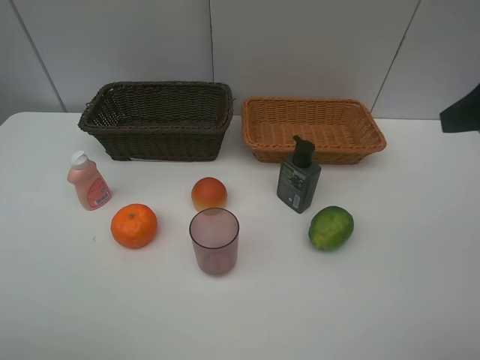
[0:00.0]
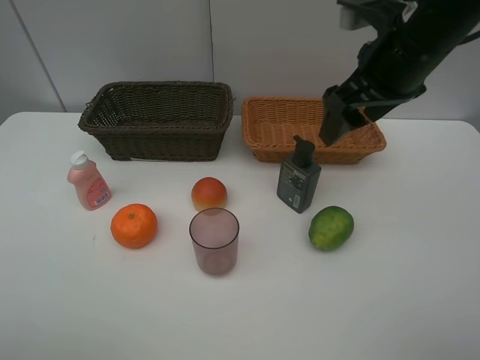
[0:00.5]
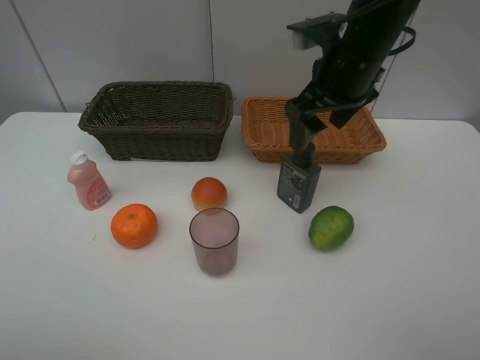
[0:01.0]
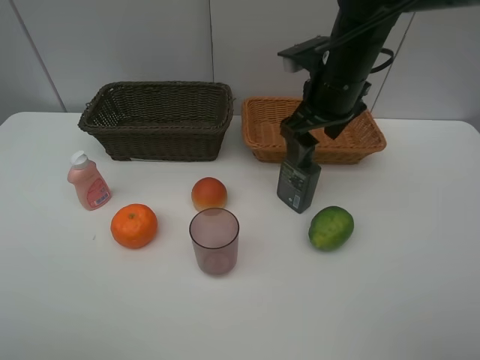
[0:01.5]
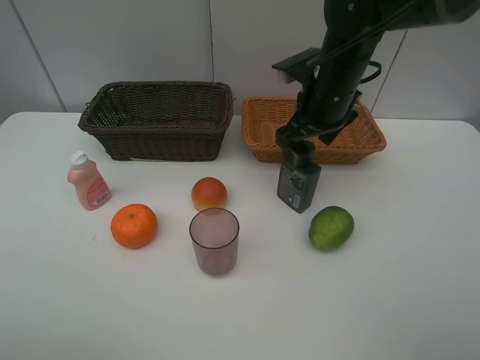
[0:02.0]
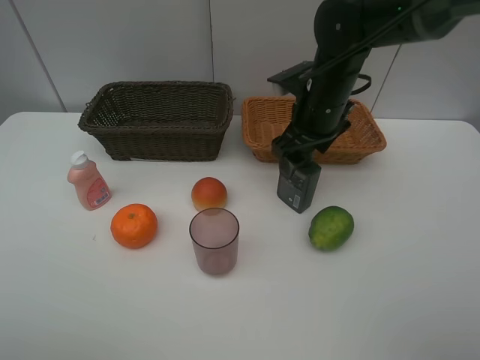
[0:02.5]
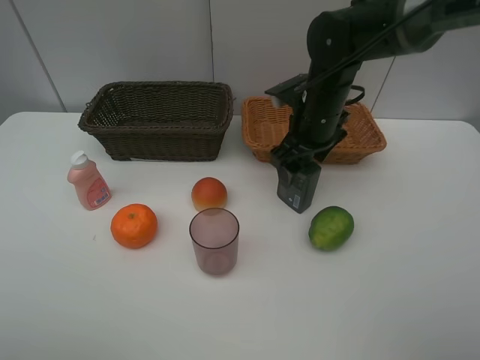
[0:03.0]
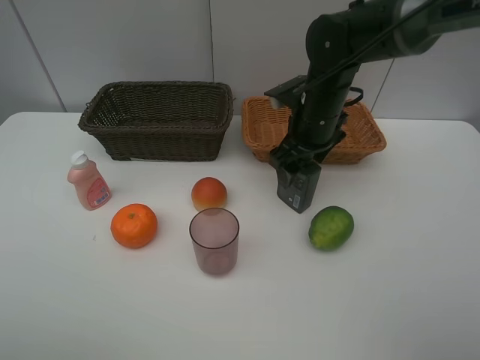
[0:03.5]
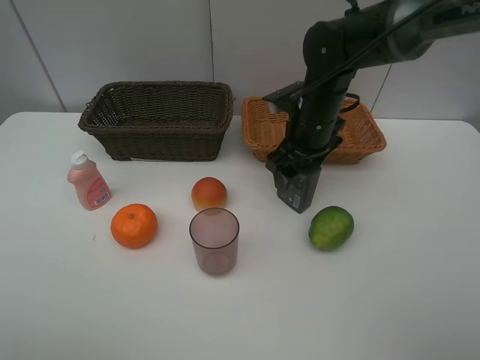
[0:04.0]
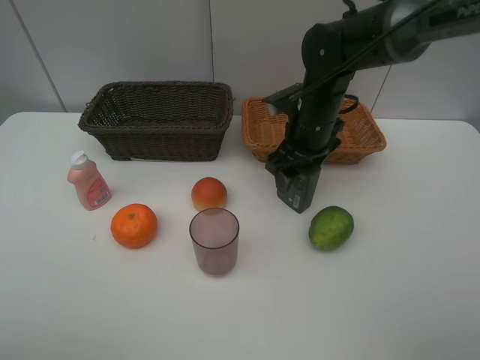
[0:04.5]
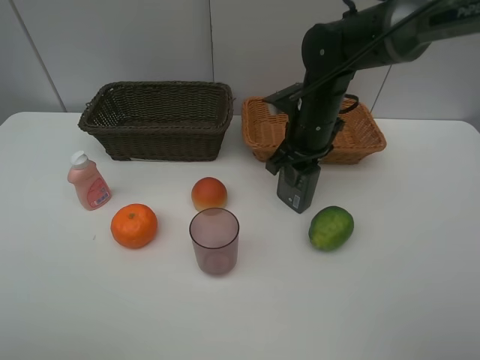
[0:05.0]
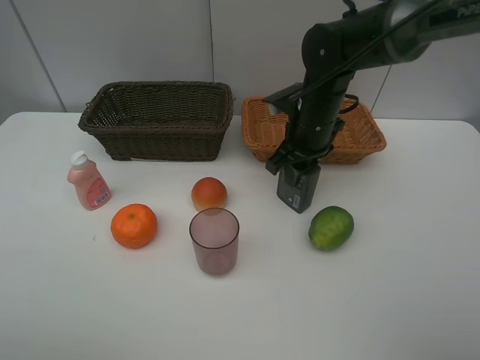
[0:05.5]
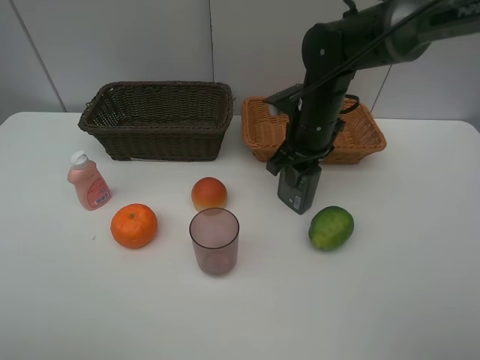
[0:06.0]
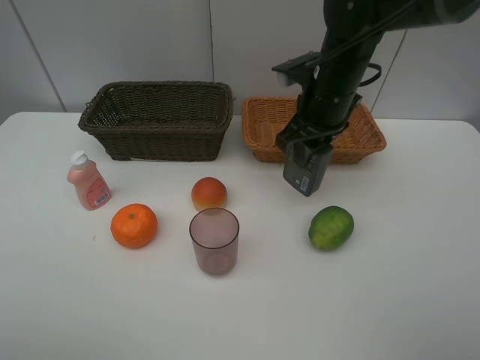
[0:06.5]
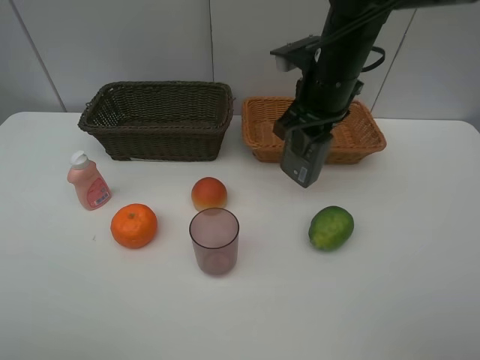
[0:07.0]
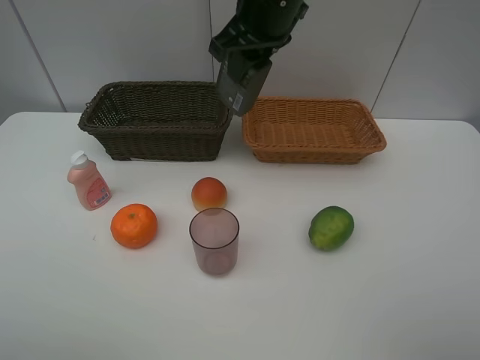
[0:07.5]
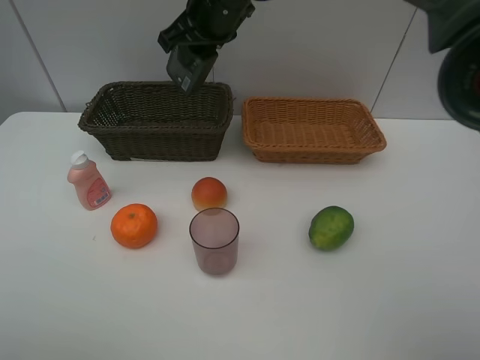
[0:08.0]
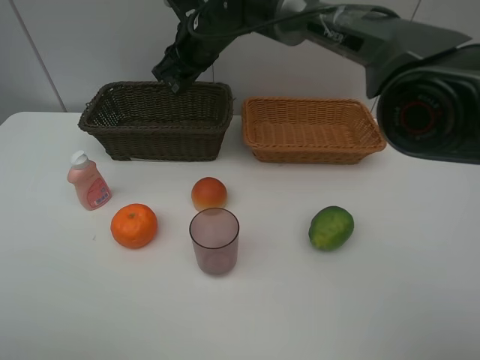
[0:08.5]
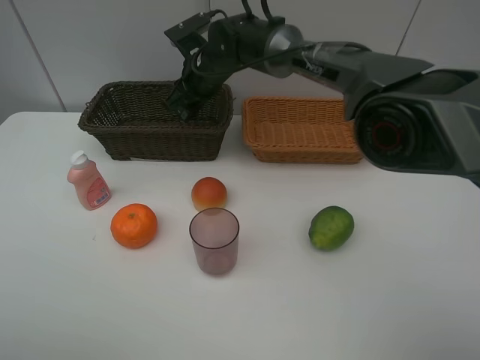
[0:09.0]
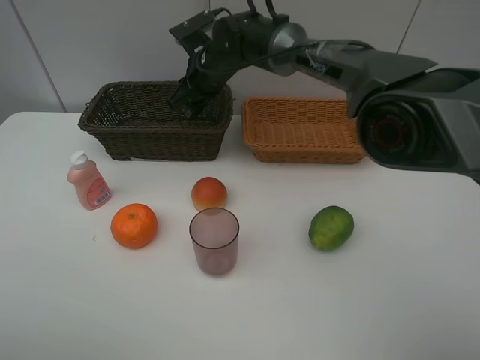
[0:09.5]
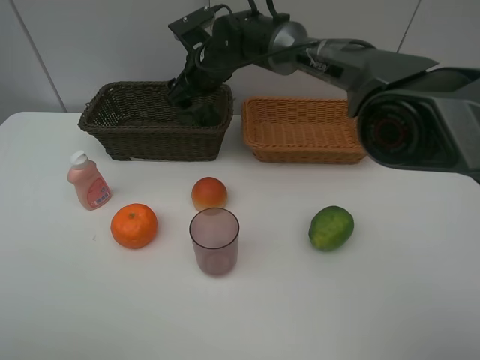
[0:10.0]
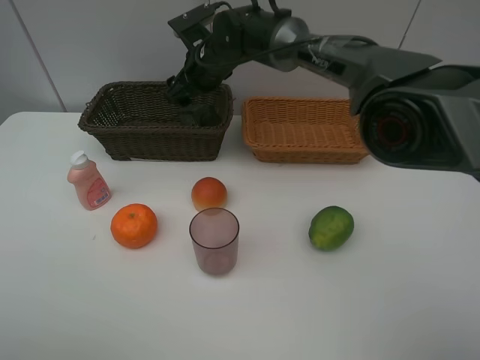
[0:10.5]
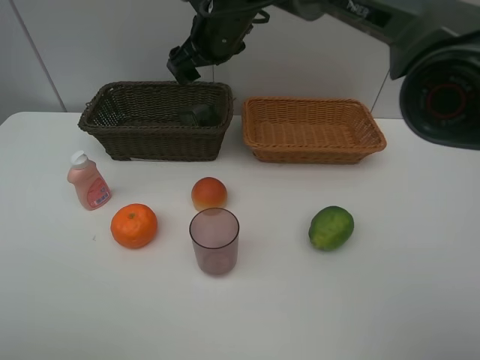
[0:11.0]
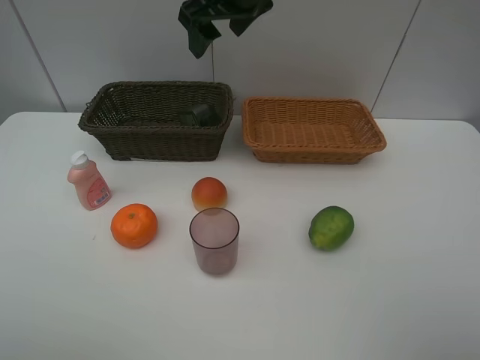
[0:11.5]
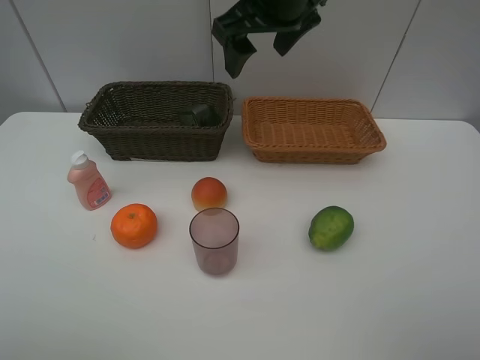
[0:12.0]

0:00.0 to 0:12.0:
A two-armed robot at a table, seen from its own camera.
Task of the whole recording: place multiple objects separately in different baskets.
0:00.0 to 0:02.0: The right gripper shifts some 25 cm forward, to the left and downward.
0:02.0 to 0:04.0: The right gripper moves downward, about 5 cm.
0:06.0 to 0:08.0: The right gripper is displaced upward and to the left by approximately 20 cm.
0:08.0 to 0:10.0: The right gripper travels downward and forward by approximately 15 cm, and opens up.
0:10.0 to 0:12.0: The right gripper heads upward, backward and to the right, covering some 20 cm.

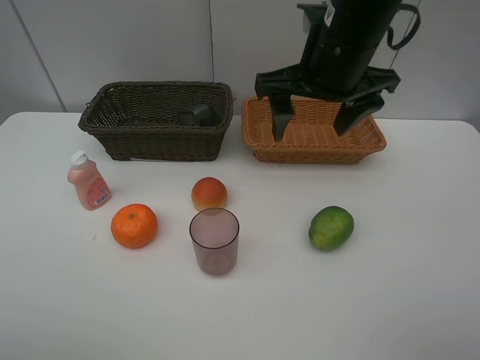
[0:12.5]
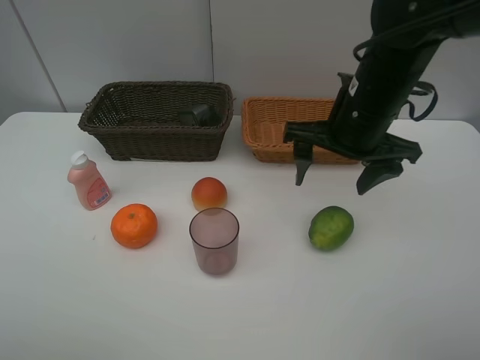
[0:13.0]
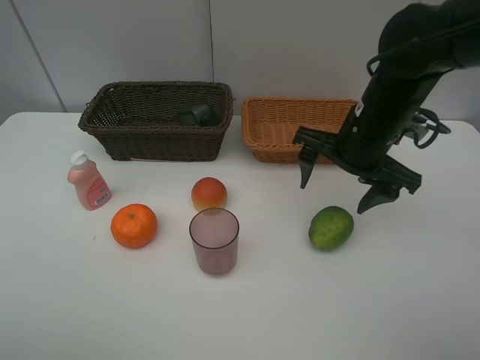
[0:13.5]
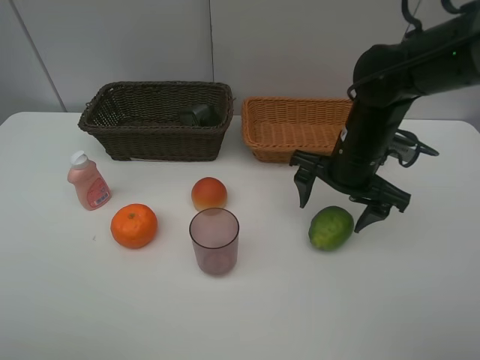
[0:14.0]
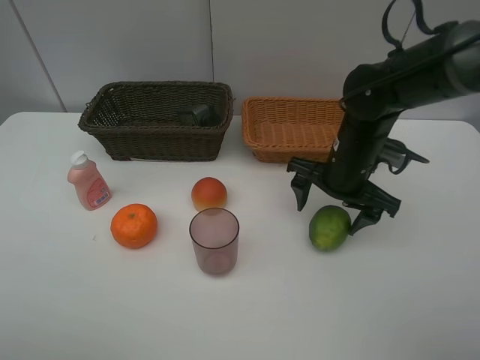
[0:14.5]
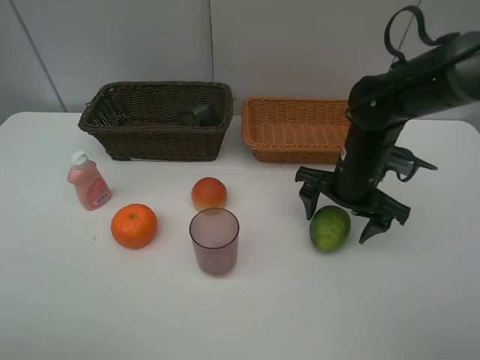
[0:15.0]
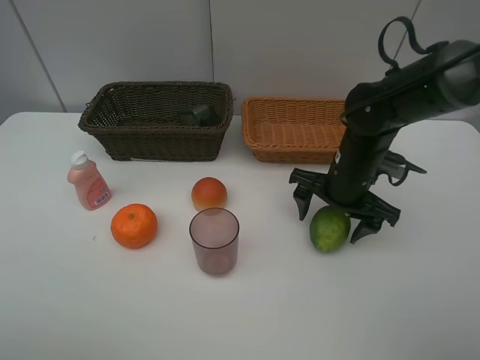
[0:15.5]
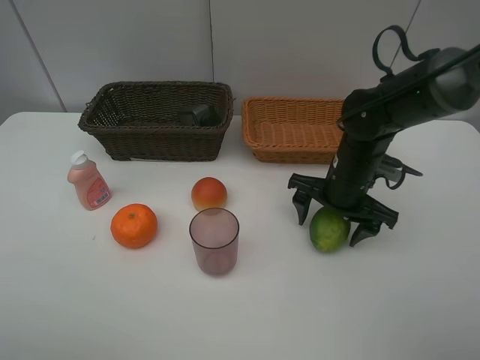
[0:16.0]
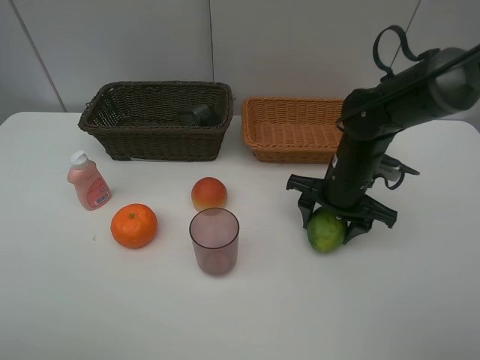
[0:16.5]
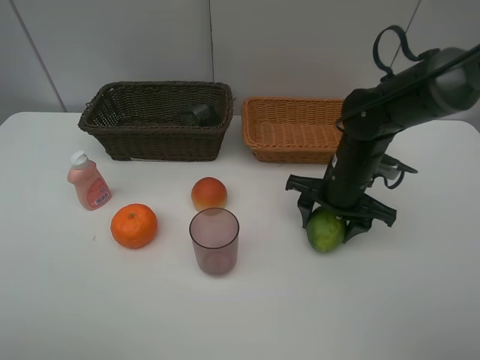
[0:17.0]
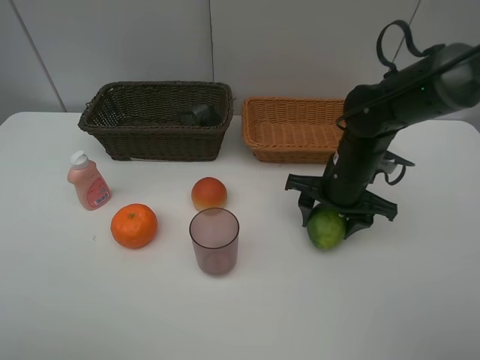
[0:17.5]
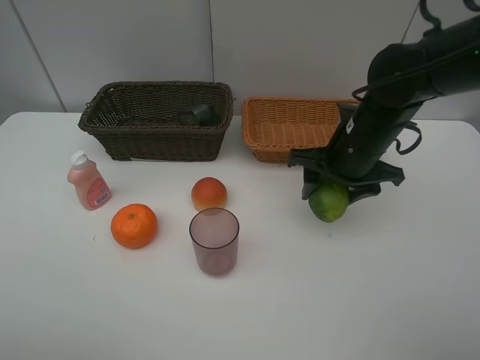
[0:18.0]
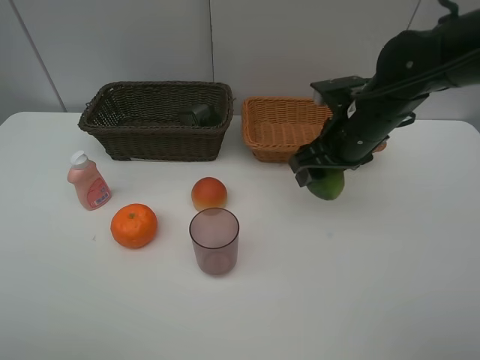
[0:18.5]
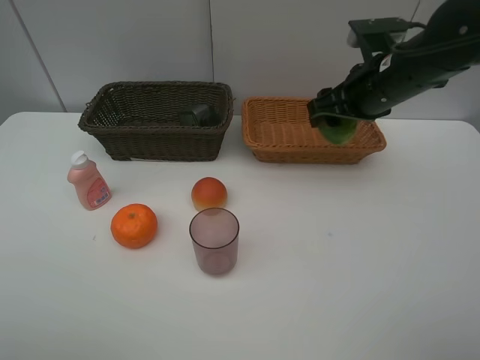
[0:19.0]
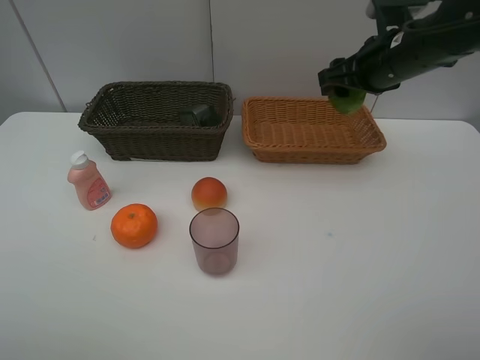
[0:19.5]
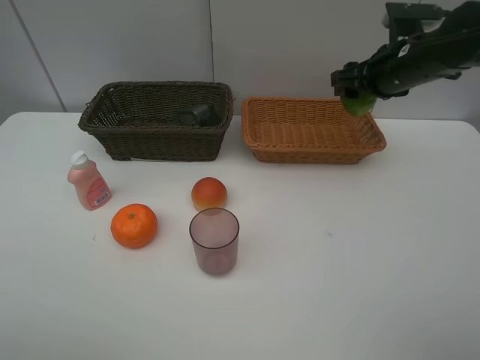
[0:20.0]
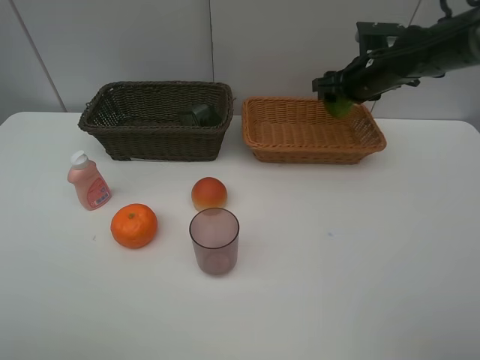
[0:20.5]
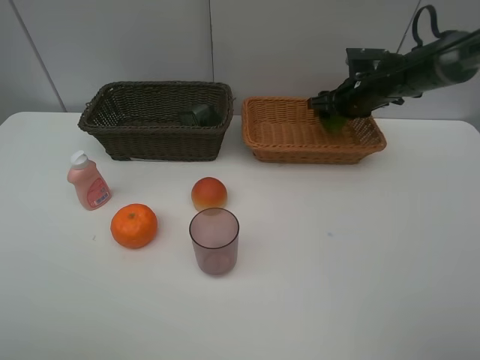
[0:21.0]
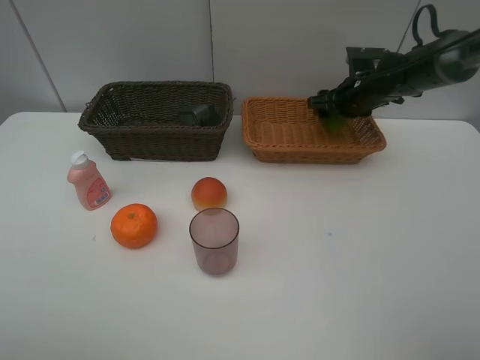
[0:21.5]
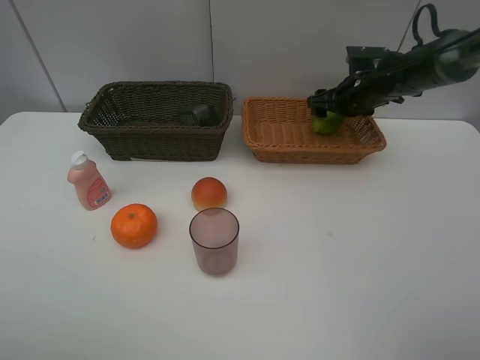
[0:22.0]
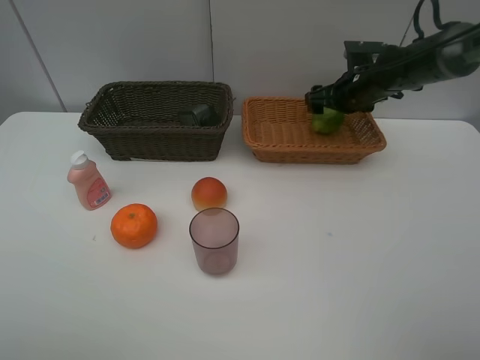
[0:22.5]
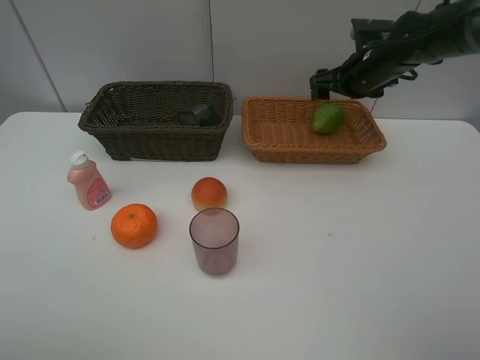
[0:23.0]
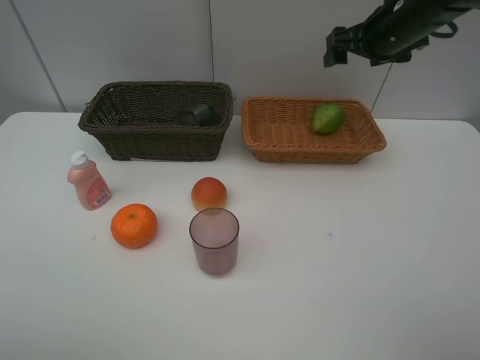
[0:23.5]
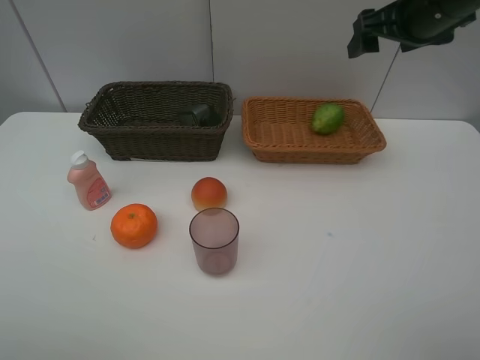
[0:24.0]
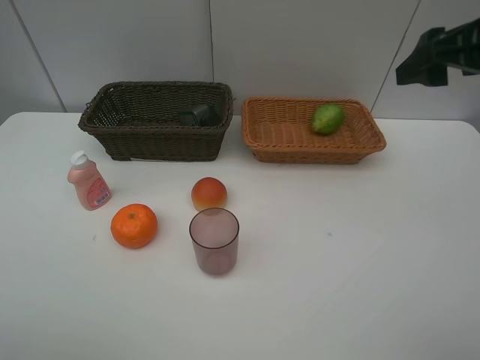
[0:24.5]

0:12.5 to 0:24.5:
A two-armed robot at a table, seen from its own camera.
Task of the whole recording: place multiple objects separately in different baskets.
0:12.5 to 0:14.5: The right gripper shifts some 15 cm downward.
0:14.5 to 0:16.5: The right gripper closes up.
0:16.5 to 0:18.5: The right gripper goes some 10 cm upward.
0:18.5 to 0:20.5: The right gripper goes about 15 cm forward and to the right.
0:20.5 to 0:22.5: The right gripper opens.
0:22.5 to 0:24.5: The right gripper moves backward and upward, some 30 cm.

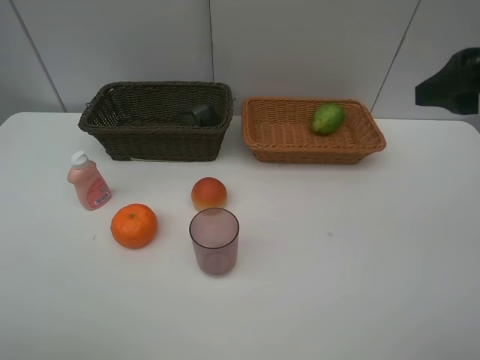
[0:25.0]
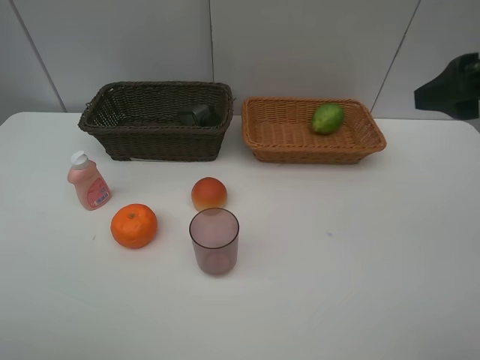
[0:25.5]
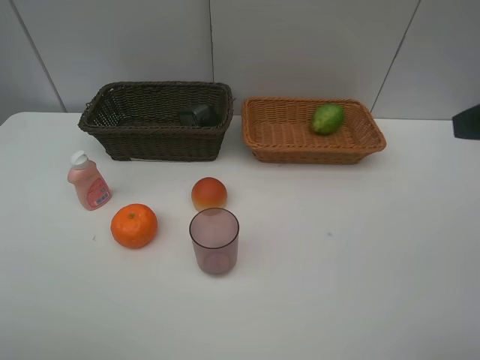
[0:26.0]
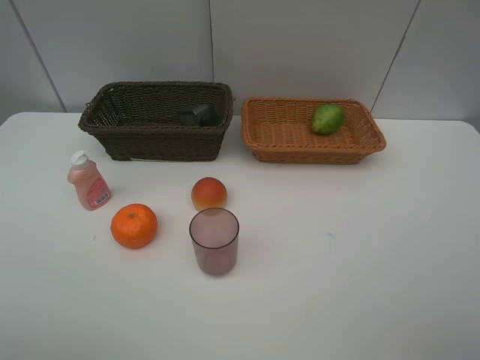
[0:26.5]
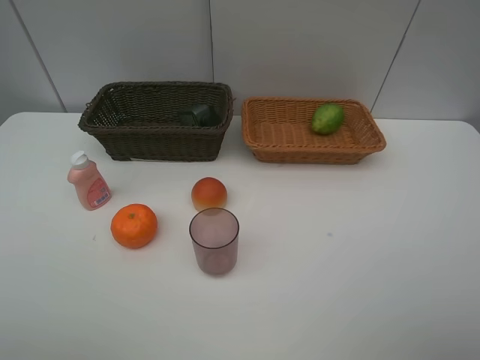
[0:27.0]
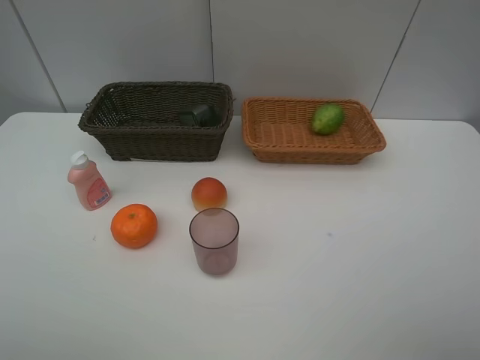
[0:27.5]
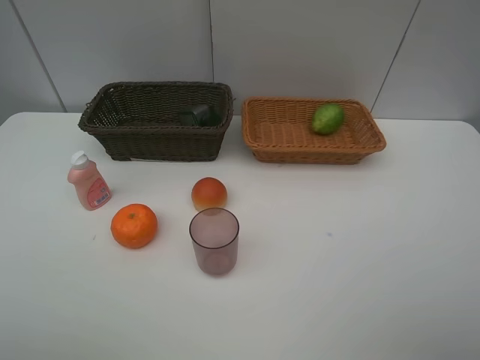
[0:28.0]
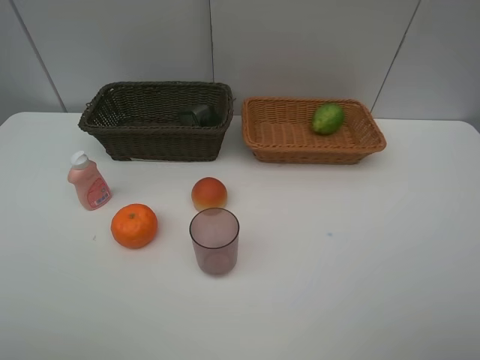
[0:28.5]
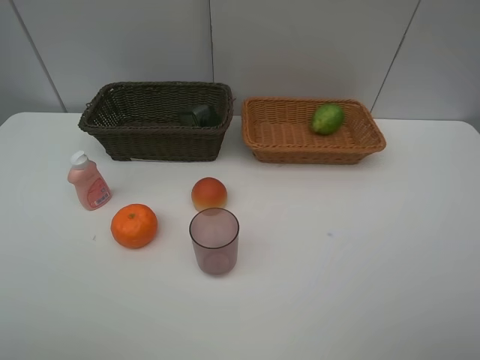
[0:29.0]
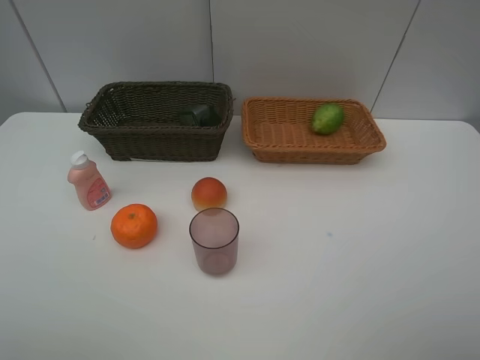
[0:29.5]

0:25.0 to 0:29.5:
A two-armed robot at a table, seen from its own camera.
Task of the whole recording: place multiple objects separately in different baskets.
0:25.0 to 0:27.0: The right gripper is displaced backward by about 20 cm.
